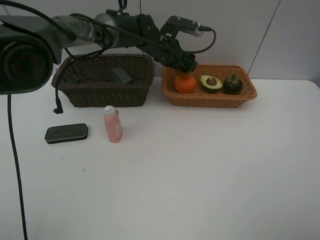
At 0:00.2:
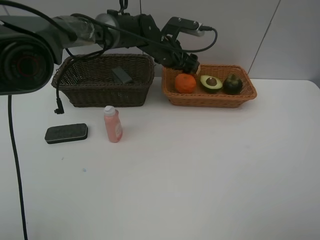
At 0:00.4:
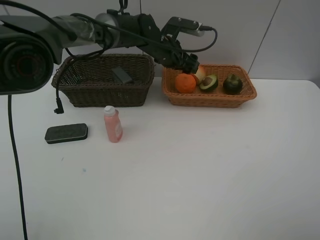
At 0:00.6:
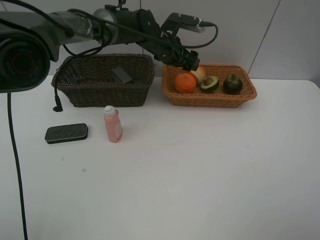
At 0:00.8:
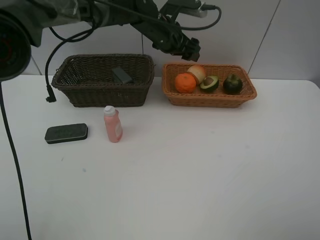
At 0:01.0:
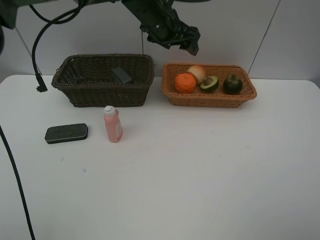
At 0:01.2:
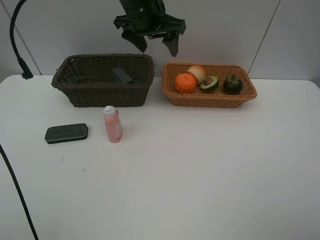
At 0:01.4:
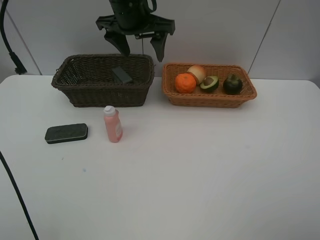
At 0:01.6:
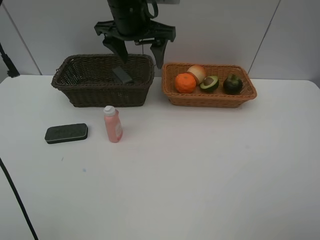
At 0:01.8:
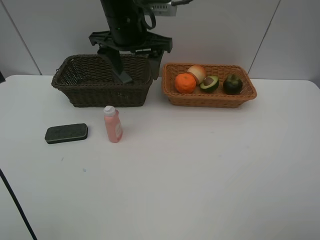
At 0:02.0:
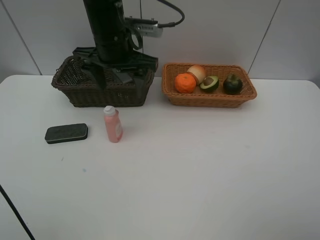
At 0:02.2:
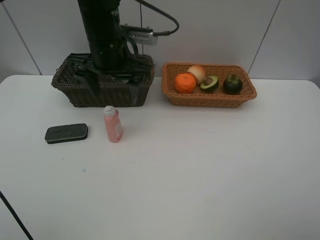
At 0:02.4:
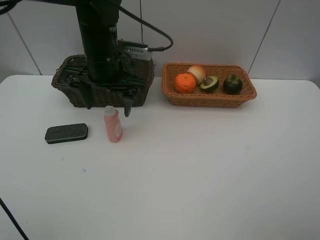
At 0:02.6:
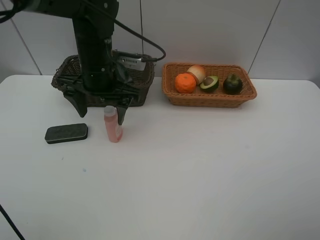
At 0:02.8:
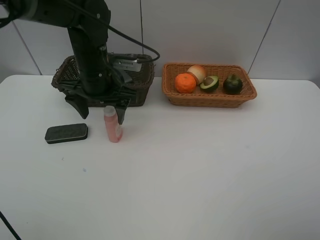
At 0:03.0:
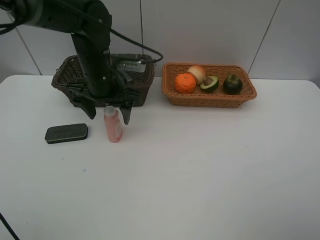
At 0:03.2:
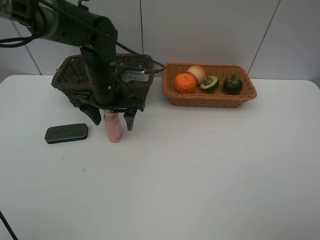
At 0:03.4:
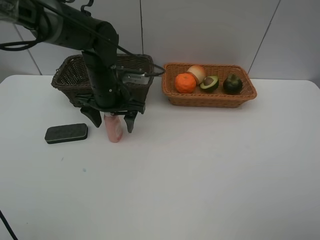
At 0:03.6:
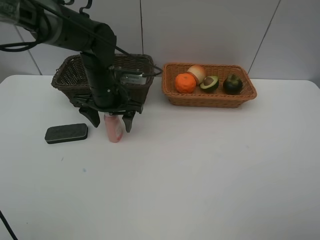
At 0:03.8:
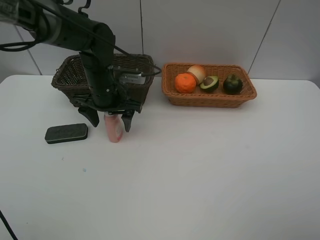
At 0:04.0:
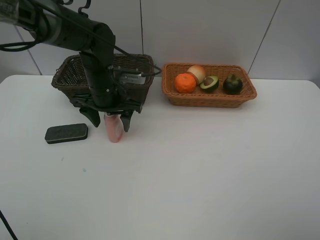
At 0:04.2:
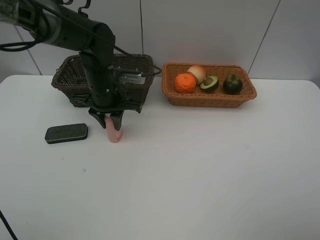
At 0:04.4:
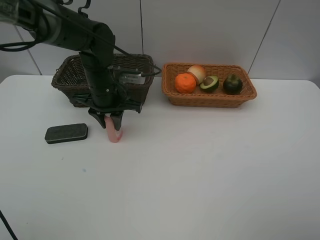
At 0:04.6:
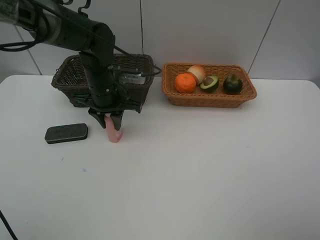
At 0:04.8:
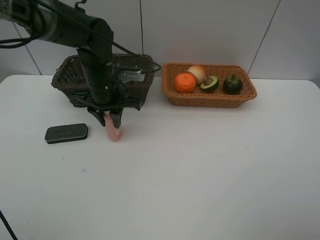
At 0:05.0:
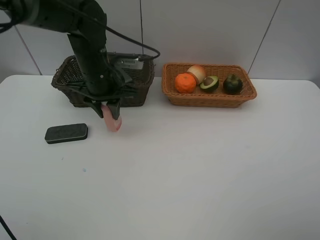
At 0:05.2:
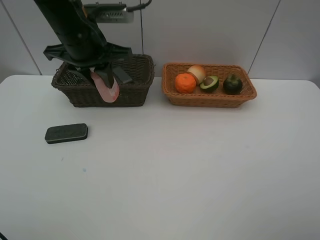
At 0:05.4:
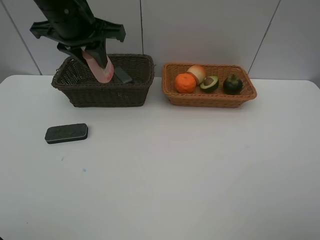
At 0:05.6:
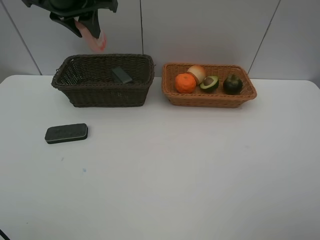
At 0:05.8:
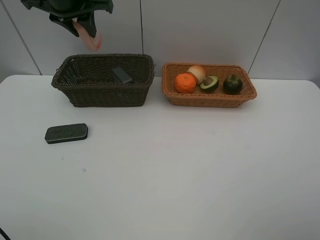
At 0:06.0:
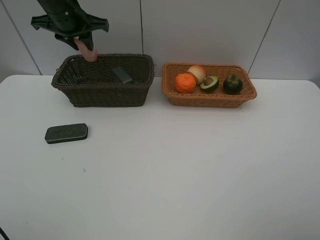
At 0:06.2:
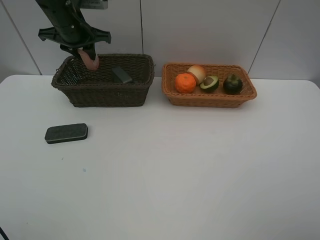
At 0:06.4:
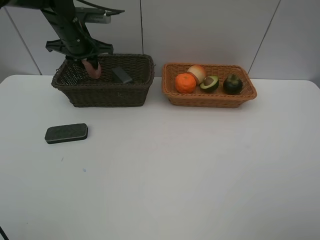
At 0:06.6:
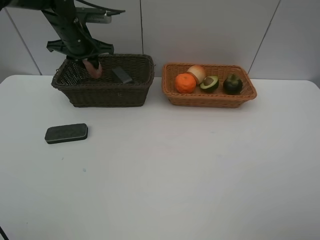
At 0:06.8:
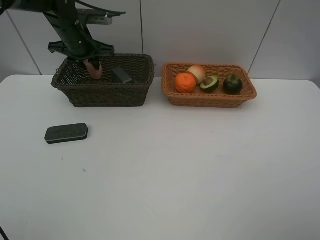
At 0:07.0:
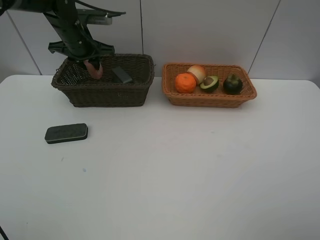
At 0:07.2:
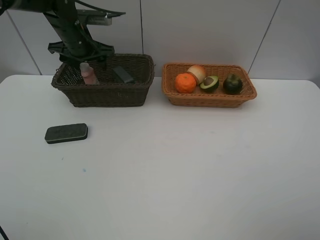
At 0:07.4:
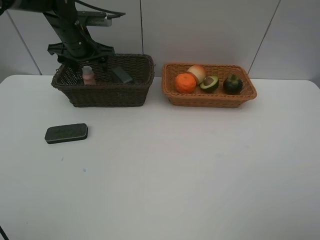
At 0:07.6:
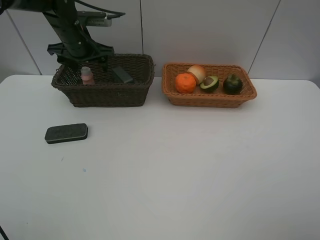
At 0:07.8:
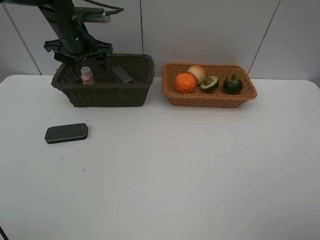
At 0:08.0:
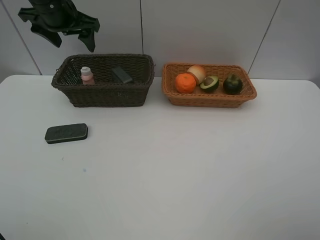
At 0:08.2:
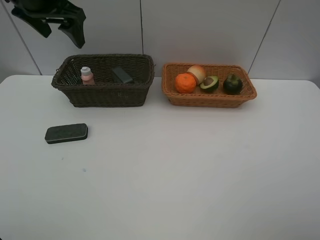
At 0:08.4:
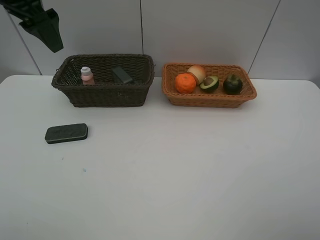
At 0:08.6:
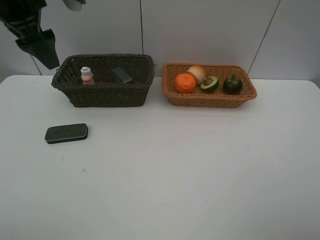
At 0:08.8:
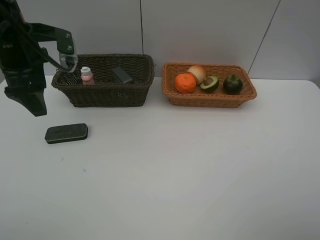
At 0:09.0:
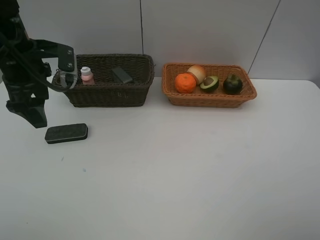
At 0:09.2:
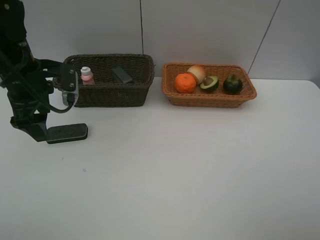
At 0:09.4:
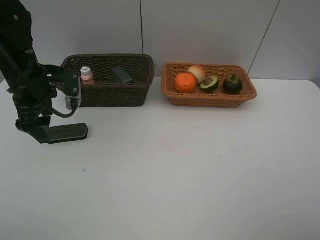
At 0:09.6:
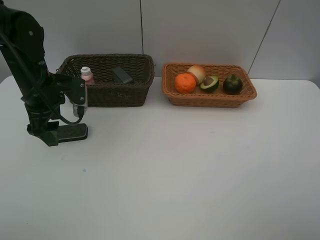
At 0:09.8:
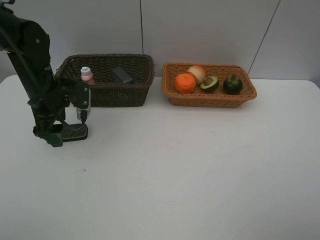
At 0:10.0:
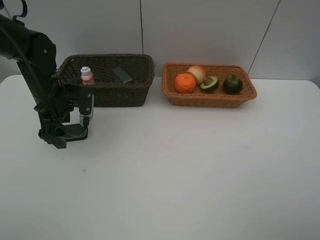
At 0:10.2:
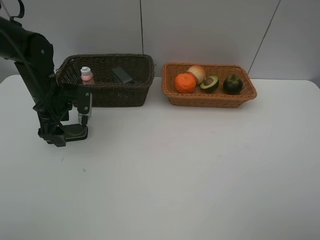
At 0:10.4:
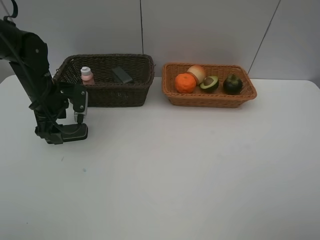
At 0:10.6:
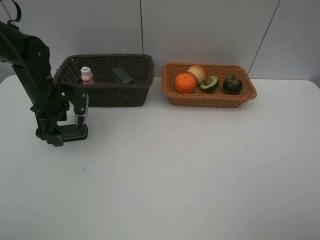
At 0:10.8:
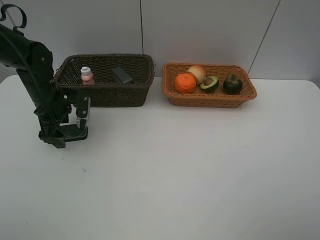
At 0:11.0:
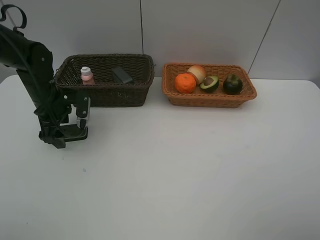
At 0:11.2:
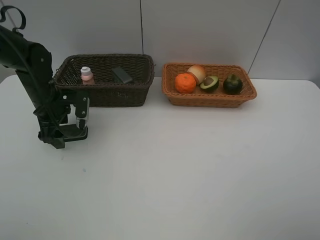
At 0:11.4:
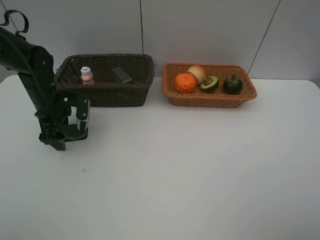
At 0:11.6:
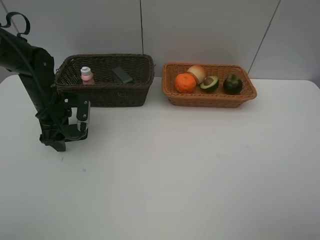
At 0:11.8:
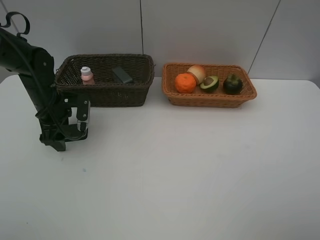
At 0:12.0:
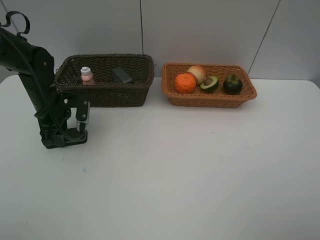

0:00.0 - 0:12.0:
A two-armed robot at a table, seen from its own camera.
Task of the whole recording: Place multiple objects separately in different baskets.
Step, 0:00.8 - 0:05.0: Pick up the laundry detergent with left gripper.
Step, 0:05.2 - 0:07.8: Place the laundry detergent in the dark basket with left gripper.
0:00.0 - 0:01.6: The left gripper is displaced upward, backward and to the left by approximately 15 cm.
0:01.6 - 0:03.0: The left gripper is displaced downward and to the left by some 10 cm.
0:03.0 - 0:04.4: The left gripper closes its fingers.
0:04.4 - 0:06.0: The left gripper is displaced upward, to the left and forward by roughly 15 cm.
0:06.0 - 0:07.6: The left gripper shifts about 5 cm downward, and opens its fingers.
0:07.6 - 0:09.0: The left gripper travels backward by roughly 15 cm.
0:09.0 - 0:10.4: The left gripper moves downward, some 10 cm.
0:10.4 - 0:12.0: The left gripper closes up.

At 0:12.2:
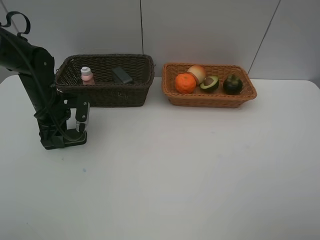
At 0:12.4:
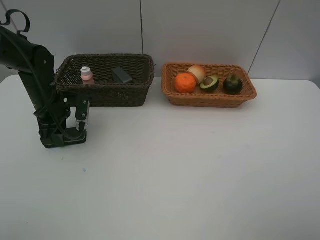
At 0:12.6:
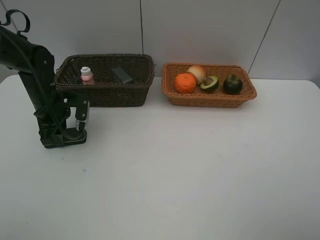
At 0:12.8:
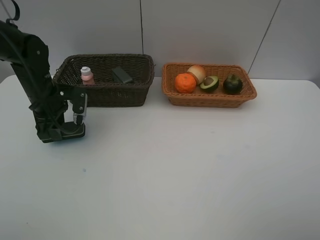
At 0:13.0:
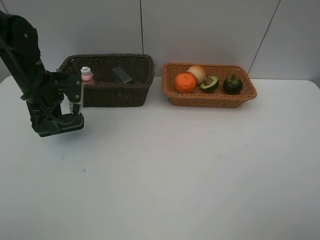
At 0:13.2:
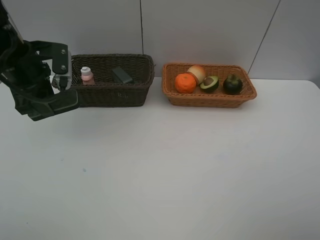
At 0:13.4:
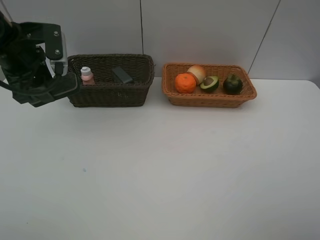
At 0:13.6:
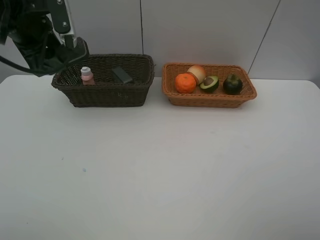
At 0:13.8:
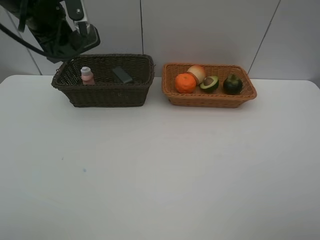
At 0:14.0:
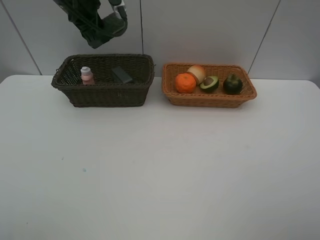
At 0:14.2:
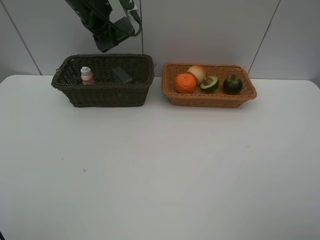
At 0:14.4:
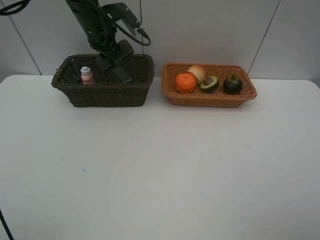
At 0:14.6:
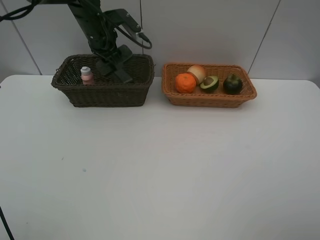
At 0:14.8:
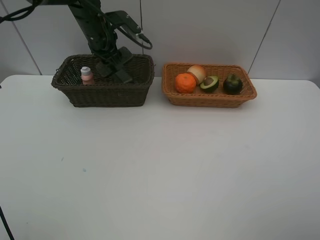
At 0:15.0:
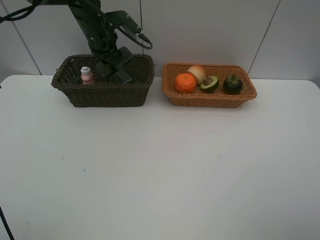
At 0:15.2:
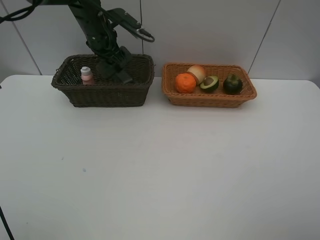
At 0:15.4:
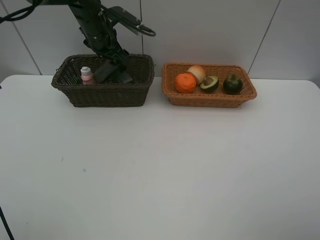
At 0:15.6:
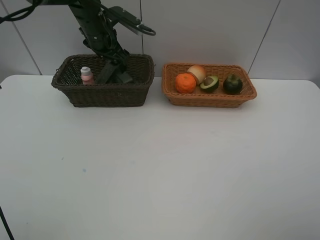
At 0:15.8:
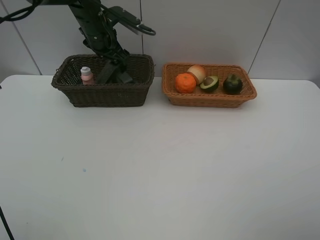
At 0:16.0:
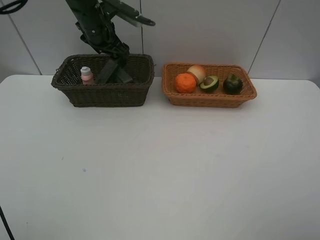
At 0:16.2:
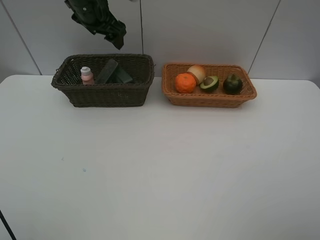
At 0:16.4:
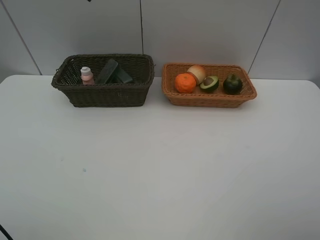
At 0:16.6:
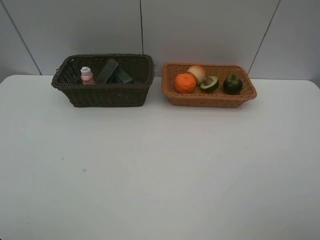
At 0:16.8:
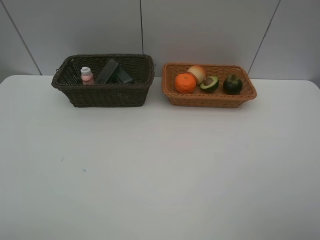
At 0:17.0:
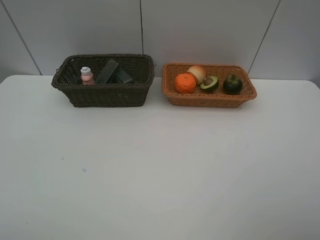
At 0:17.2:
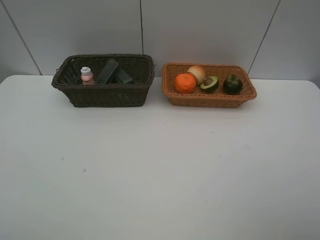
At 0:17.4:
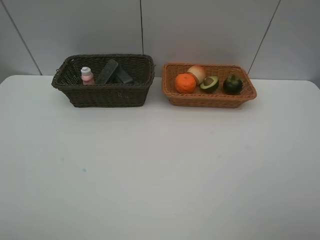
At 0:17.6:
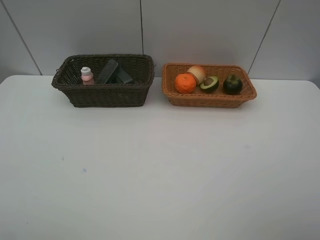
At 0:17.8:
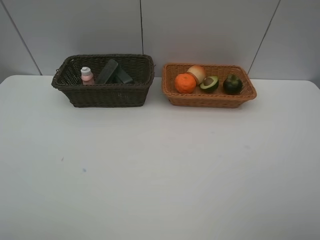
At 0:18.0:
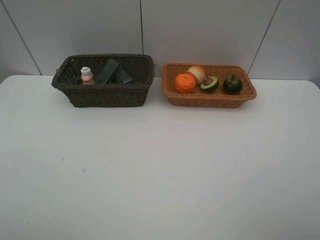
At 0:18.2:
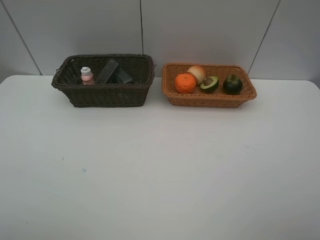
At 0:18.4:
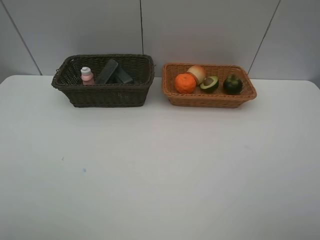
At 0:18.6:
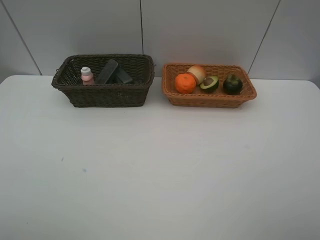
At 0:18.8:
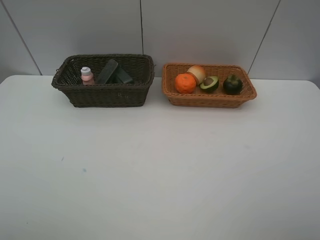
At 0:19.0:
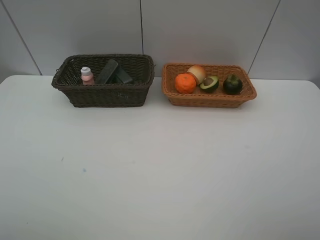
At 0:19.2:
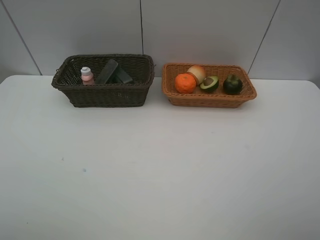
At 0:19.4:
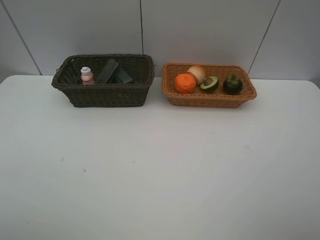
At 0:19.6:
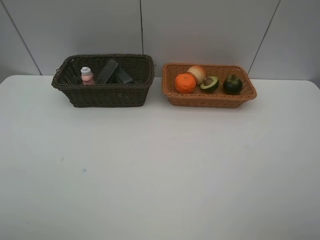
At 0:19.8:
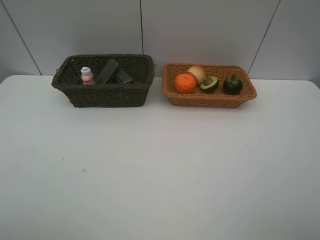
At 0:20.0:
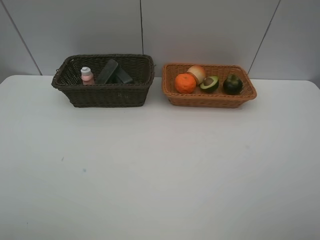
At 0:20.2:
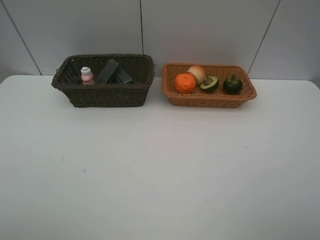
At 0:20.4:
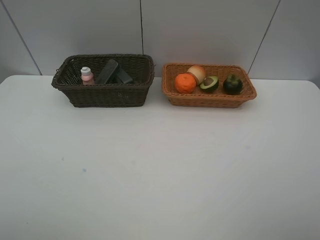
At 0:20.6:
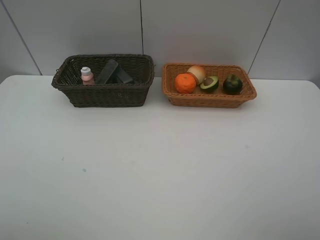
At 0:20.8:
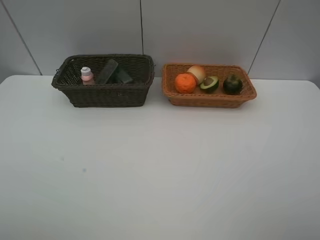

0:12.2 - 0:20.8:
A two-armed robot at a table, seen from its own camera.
Task of the whole recording: Place multiple objects separately in different baskets.
Step, 0:13.0 - 0:15.8: Place the blackboard eraser in the dark basket with left gripper.
0:12.2 - 0:13.6: The left gripper is displaced upward by roughly 20 cm.
0:13.6 - 0:15.0: The left gripper heads forward, to the right and downward, covering approximately 15 cm.
0:15.0 - 0:16.6: The left gripper travels upward and backward by some 25 cm, and opens up.
0:19.4 - 0:20.8: The two grippers keep their place.
